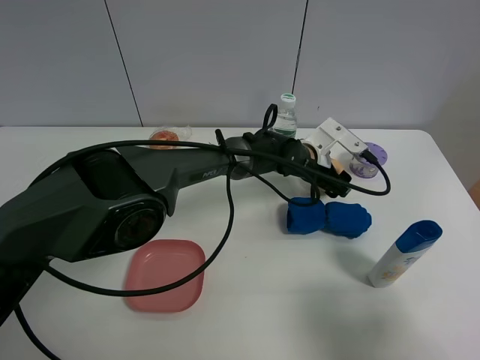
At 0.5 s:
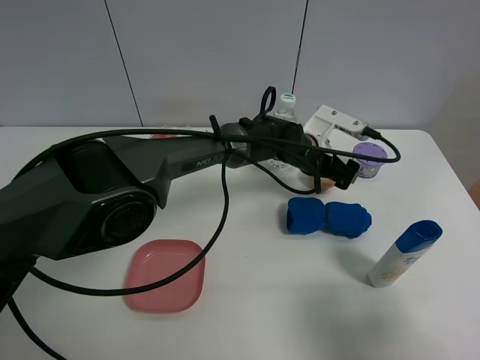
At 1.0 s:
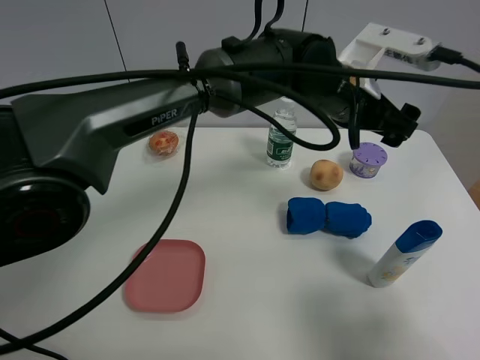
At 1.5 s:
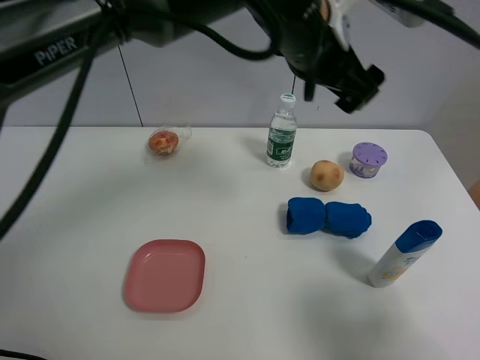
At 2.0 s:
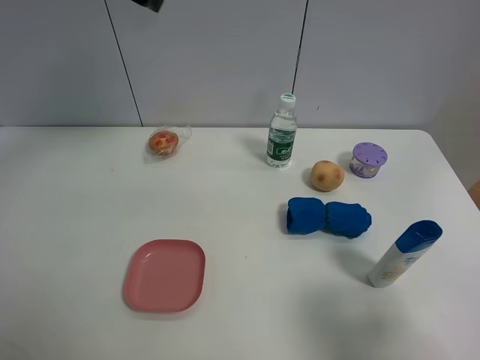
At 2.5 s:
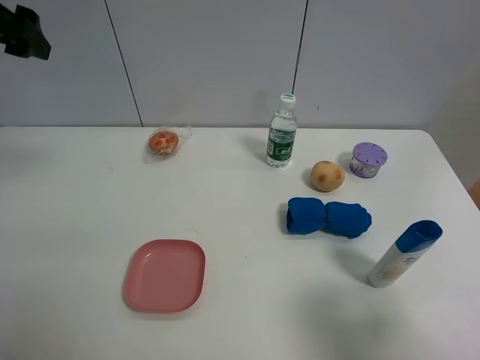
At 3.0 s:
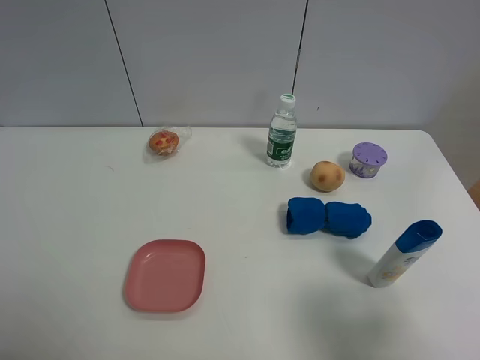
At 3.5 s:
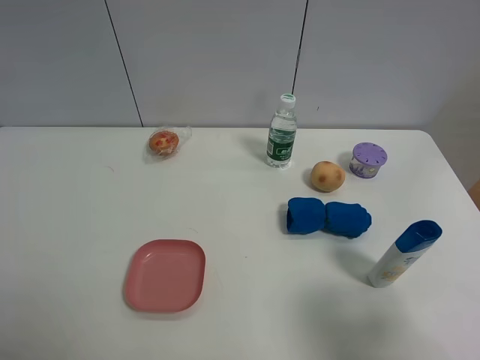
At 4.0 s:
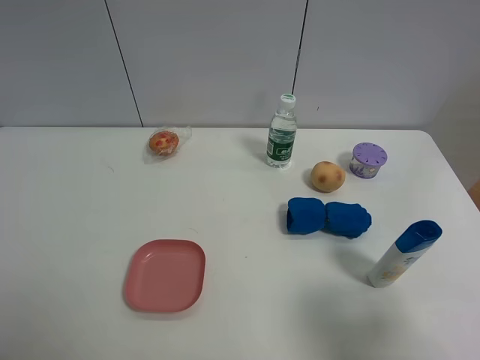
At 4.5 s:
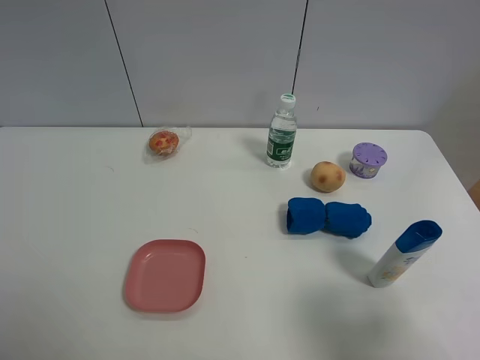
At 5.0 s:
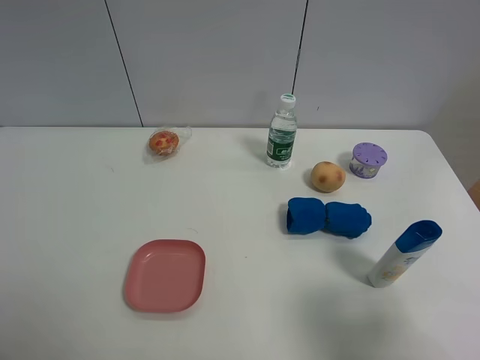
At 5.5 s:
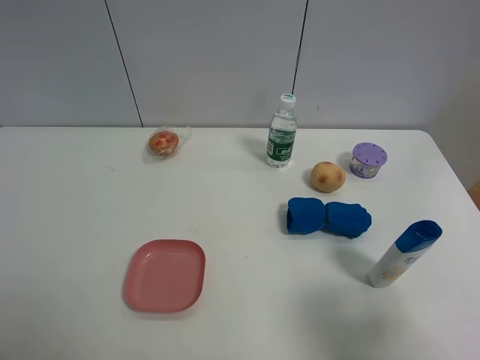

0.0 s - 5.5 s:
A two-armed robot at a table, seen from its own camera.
Task of the whole recording: the gripper move the object.
0.0 s - 2.0 s: The left gripper moves upward and to the left, roughly 50 cm.
2.0 s - 3.5 s: The left gripper moves backward, some 35 cm.

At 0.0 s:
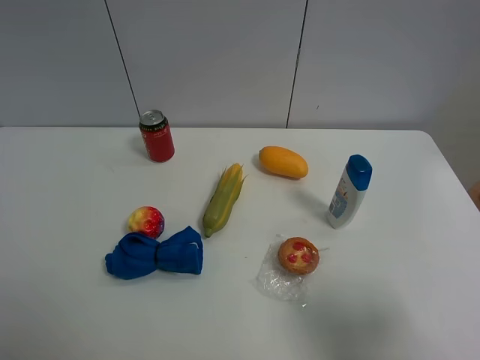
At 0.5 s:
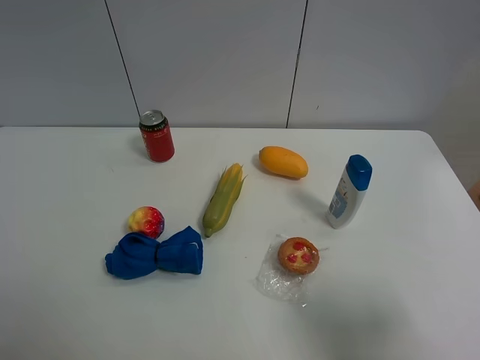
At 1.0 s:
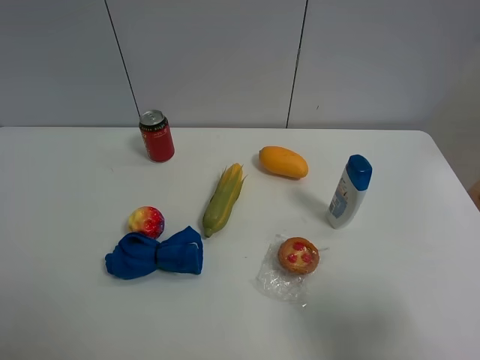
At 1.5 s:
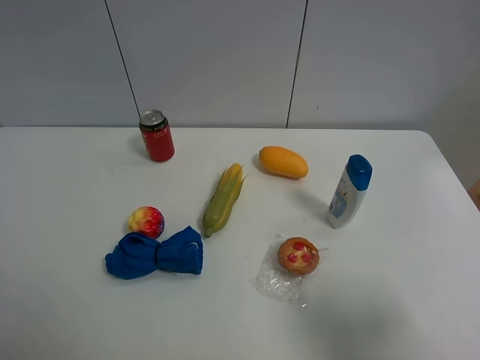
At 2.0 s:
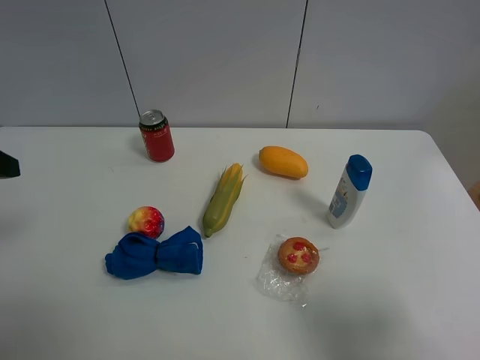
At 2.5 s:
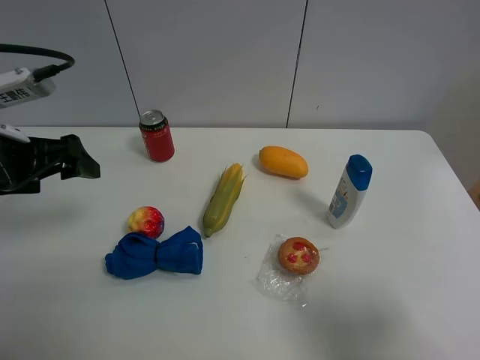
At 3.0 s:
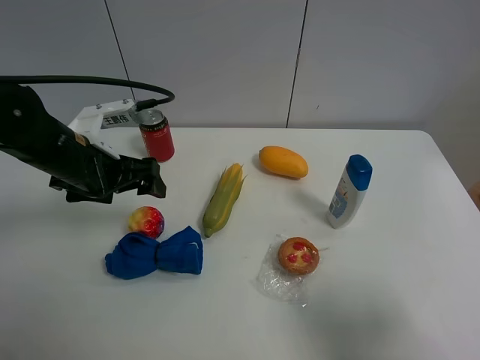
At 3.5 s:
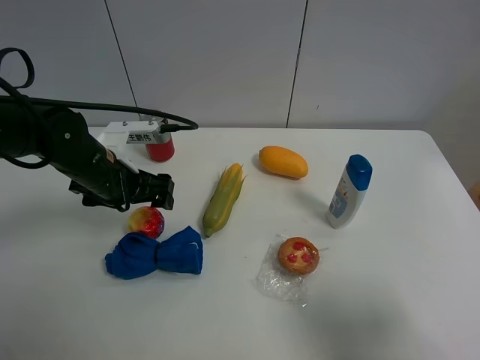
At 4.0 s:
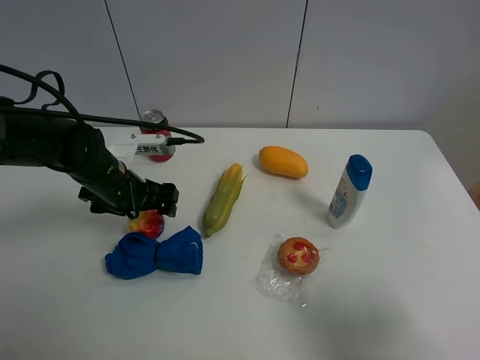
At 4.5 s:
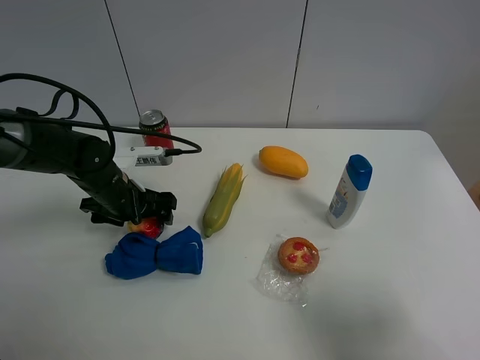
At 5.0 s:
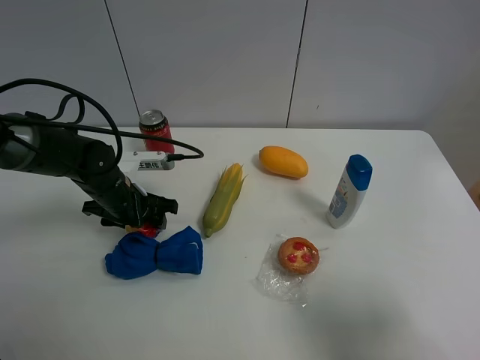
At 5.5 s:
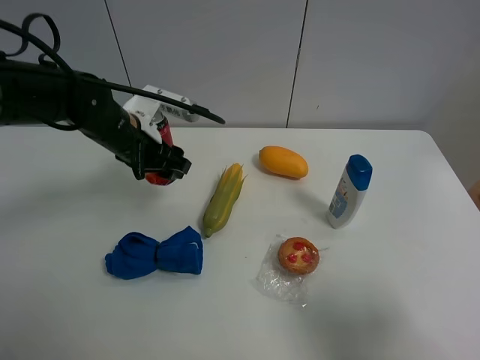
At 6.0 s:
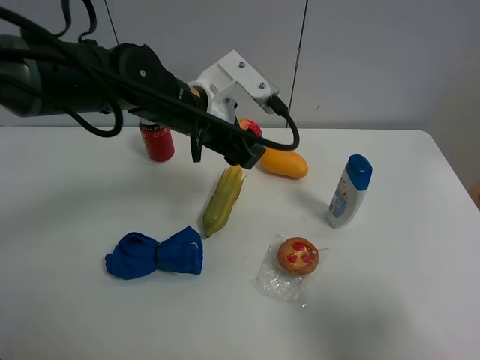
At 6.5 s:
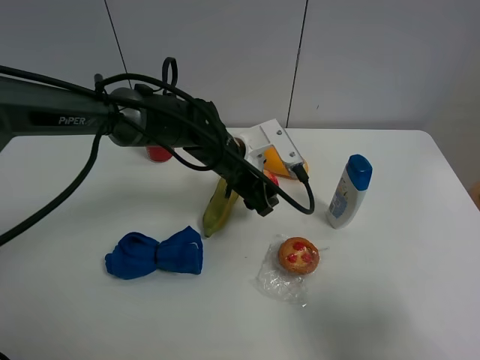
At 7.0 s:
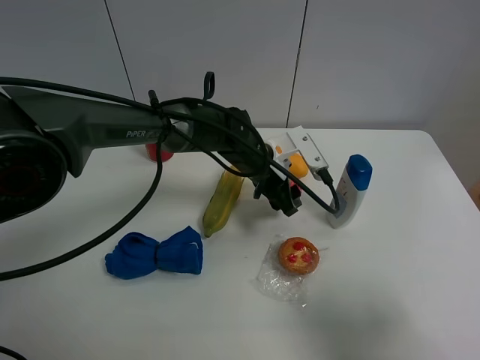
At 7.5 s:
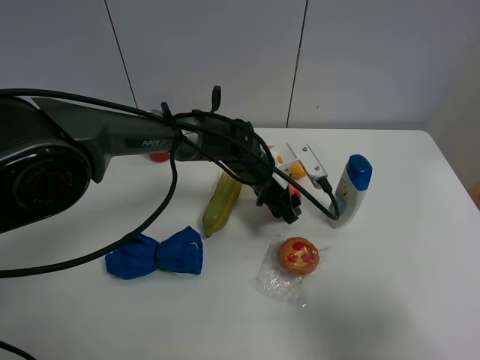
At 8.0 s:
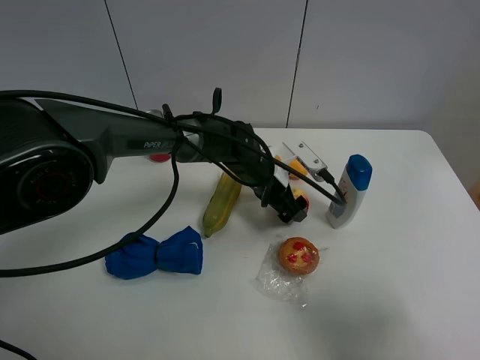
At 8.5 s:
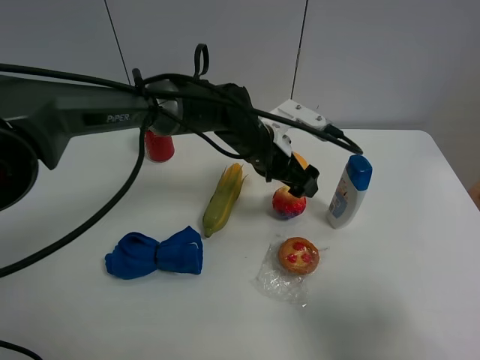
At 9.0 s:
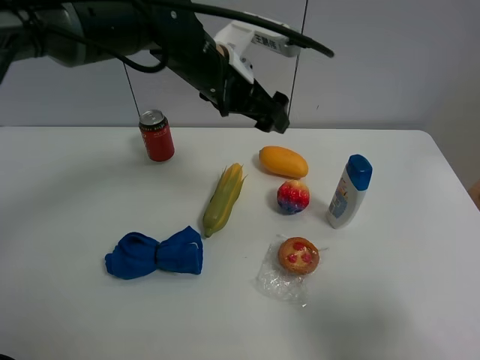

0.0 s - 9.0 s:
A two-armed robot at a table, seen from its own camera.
Task of the whole recording: the gripper move the object.
Step, 0.0 s - 5.0 s: Grasp the colorful ball with the left gripper.
Step, 5.5 s - 8.5 s: Place the colorful ball on the table with the left gripper.
2.0 s - 4.5 s: The left gripper shifts about 25 cm downward, to the right and forward.
4.5 s - 7.0 s: The left gripper goes approximately 20 cm to the right, and closes up.
7.0 s - 9.0 s: The left gripper is displaced upward and to the left by about 20 cm, and opens.

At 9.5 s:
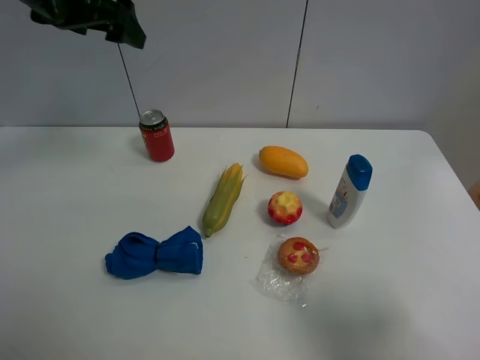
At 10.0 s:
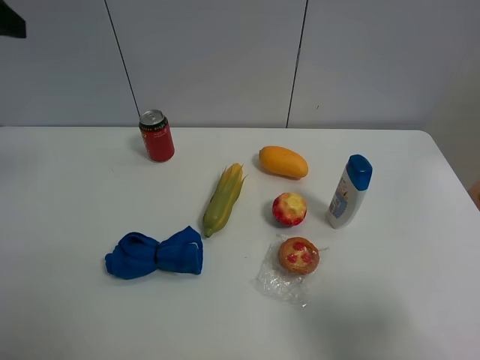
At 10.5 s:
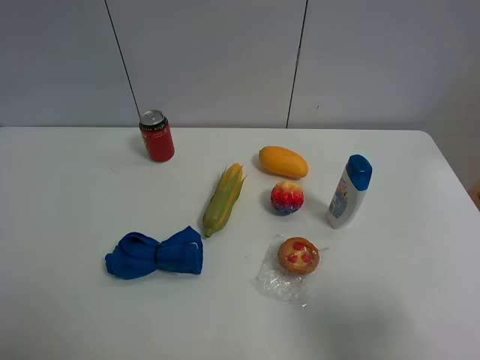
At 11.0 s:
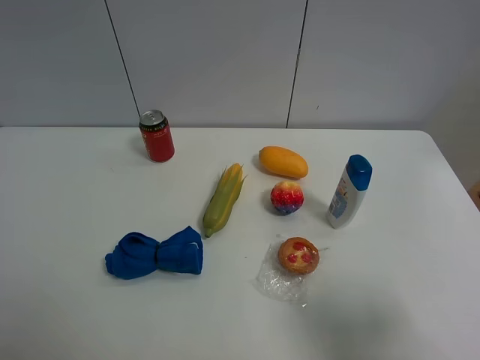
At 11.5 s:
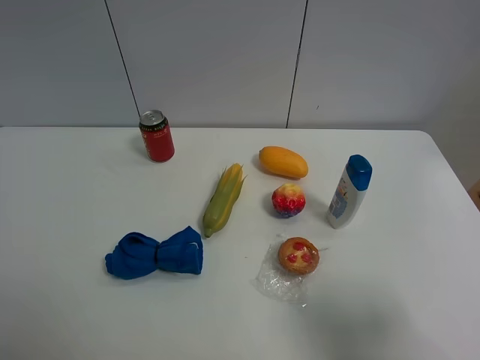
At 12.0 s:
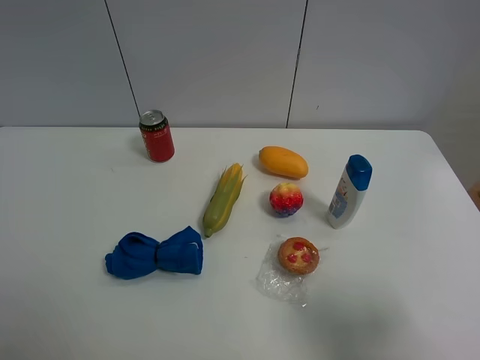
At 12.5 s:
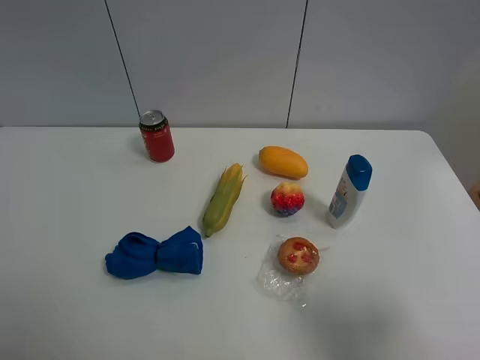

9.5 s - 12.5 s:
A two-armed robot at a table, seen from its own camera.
Task of the whole recording: the gripper move the object.
9.5 s - 11.0 s: The left gripper goes roughly 35 cm backward.
